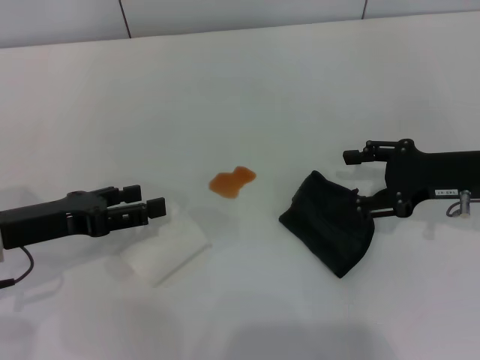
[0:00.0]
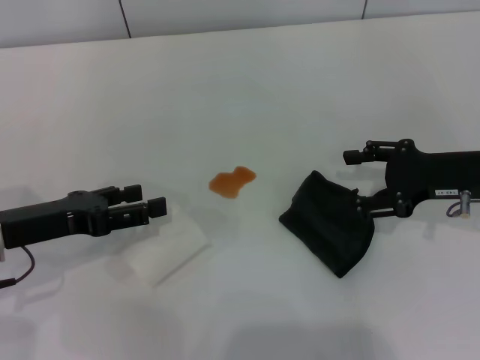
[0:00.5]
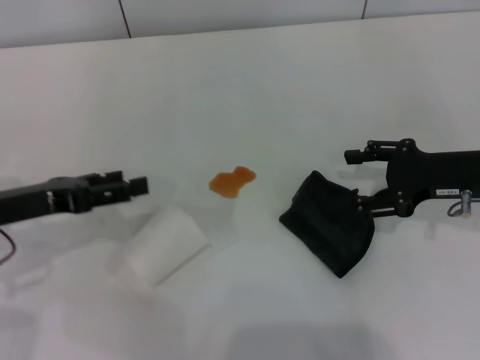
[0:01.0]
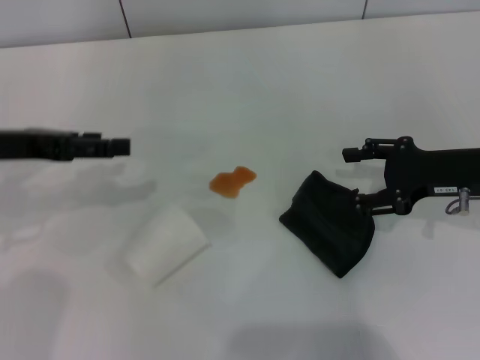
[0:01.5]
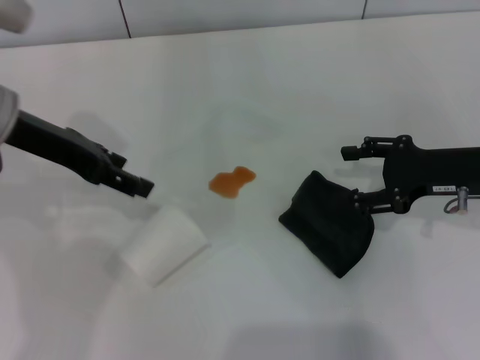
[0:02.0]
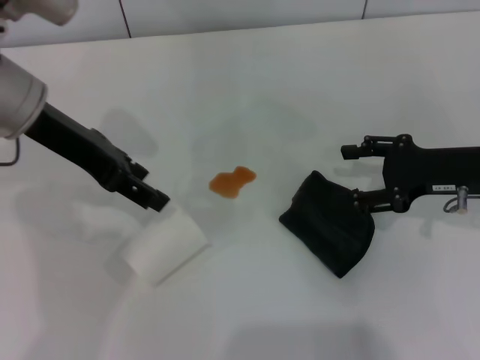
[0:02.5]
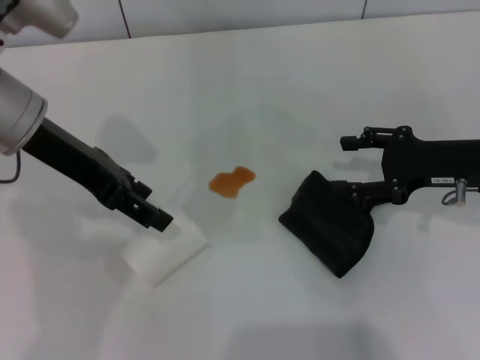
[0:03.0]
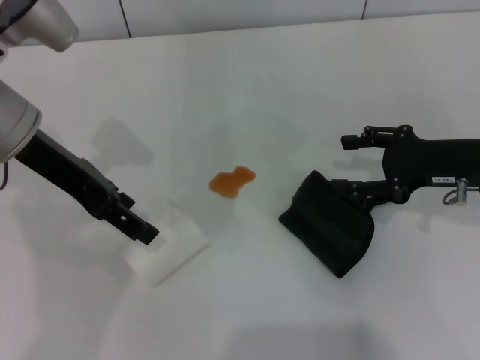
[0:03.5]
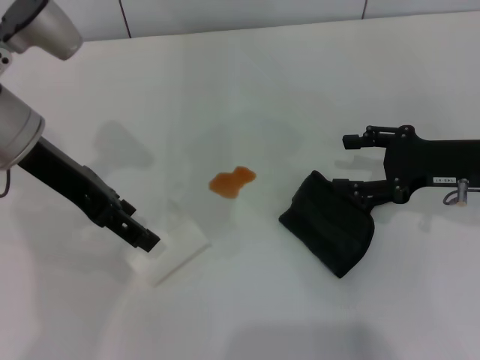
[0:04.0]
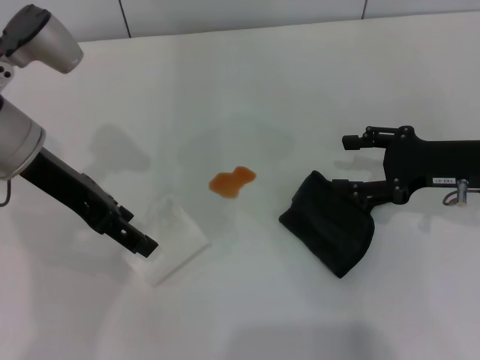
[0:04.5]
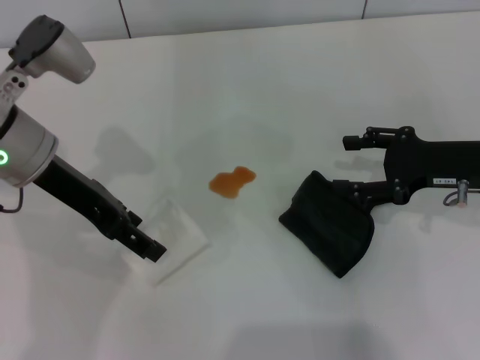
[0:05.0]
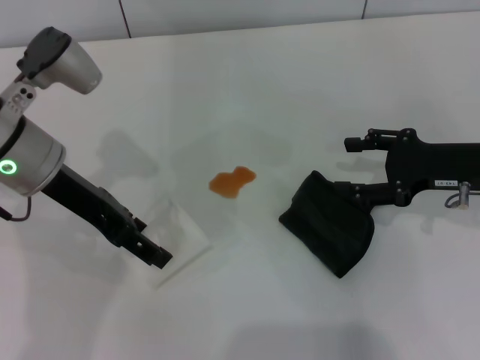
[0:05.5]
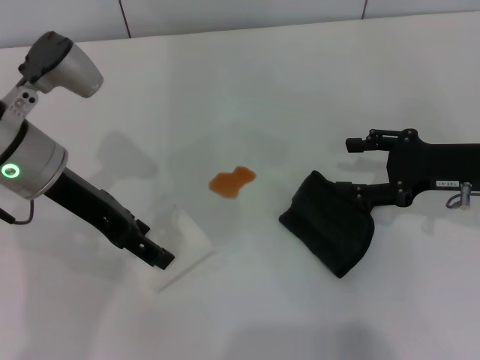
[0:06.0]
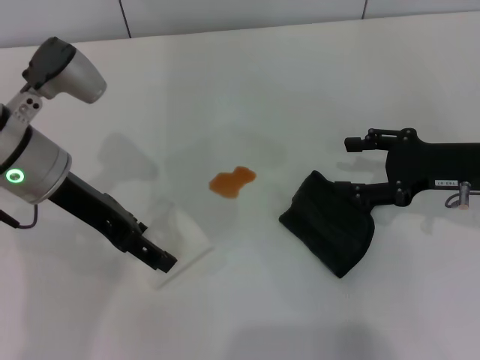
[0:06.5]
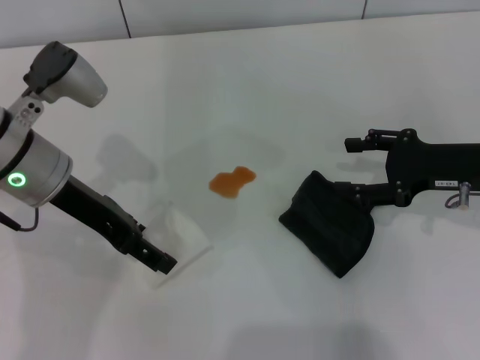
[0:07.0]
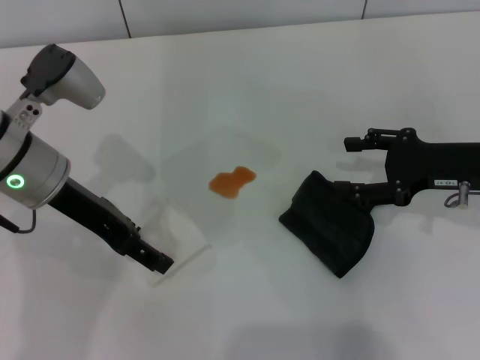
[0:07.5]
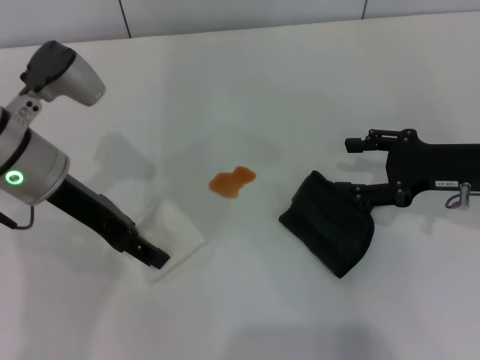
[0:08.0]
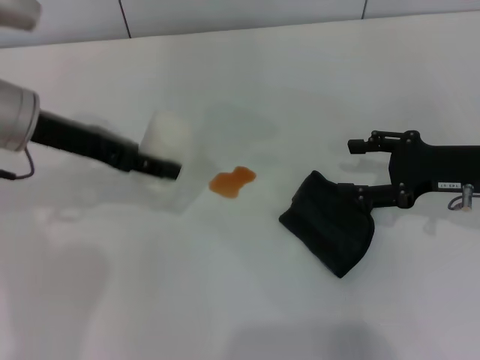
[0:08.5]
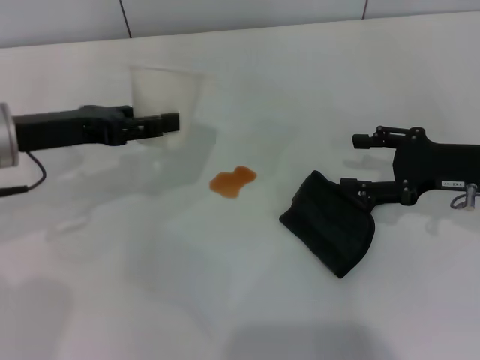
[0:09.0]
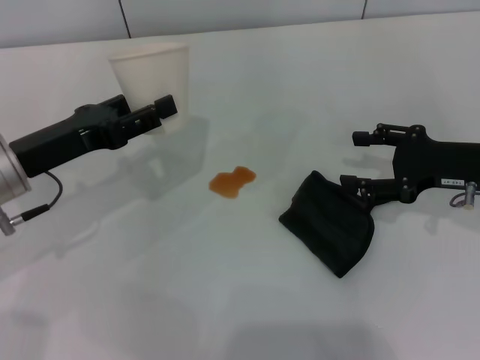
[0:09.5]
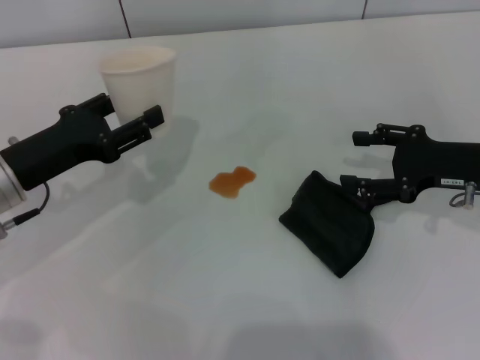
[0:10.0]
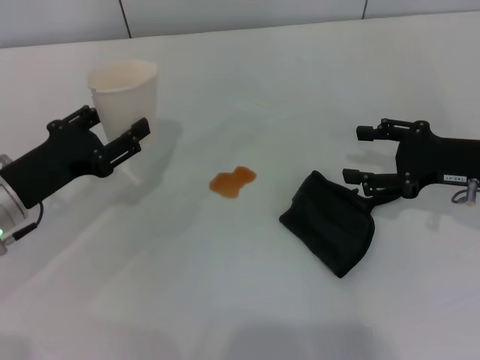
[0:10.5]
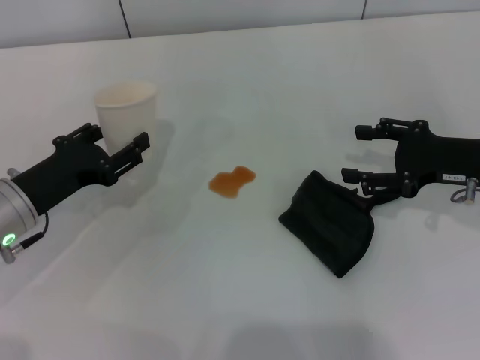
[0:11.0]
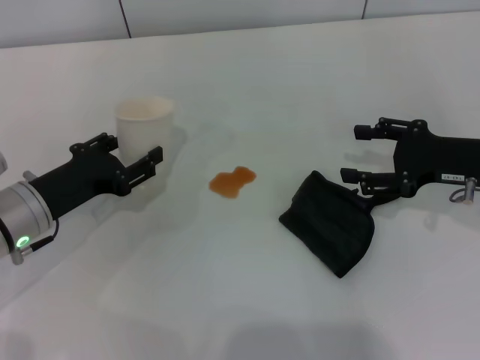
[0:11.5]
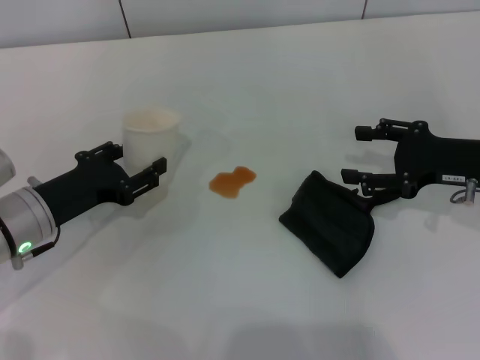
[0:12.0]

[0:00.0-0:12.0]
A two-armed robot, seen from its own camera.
Step, 0:00.0 to 0:07.5: Grasp the paper cup with the left gripper.
0:00.0 to 0:02.0: The left gripper travels upward, forward and to the right by about 15 cm.
0:02.0 to 0:04.0: The left gripper closes and opens again.
0:04.0 to 0:06.0: There are only small adjustments of the grippers.
0:06.0 to 0:08.0: The left gripper closes up.
0:08.0 to 0:10.0: The left gripper is displaced to the left by about 5 cm.
0:10.0 to 0:12.0: The left gripper changes place by some 5 cm.

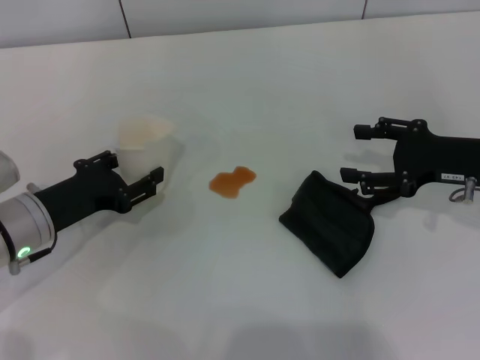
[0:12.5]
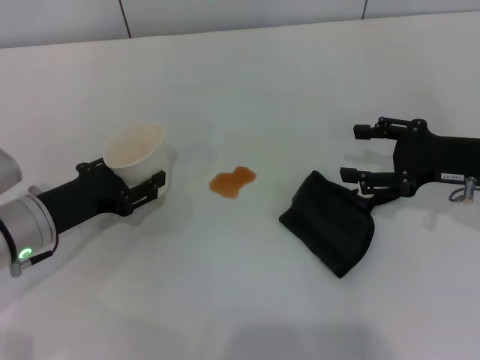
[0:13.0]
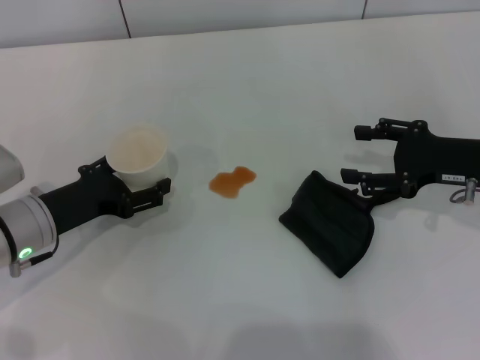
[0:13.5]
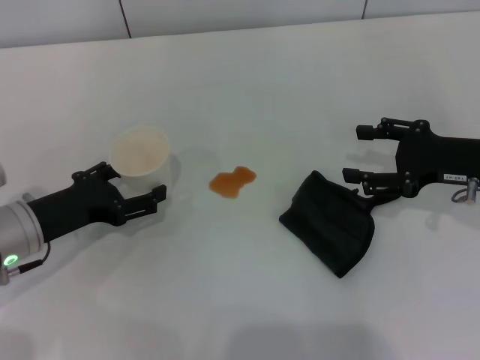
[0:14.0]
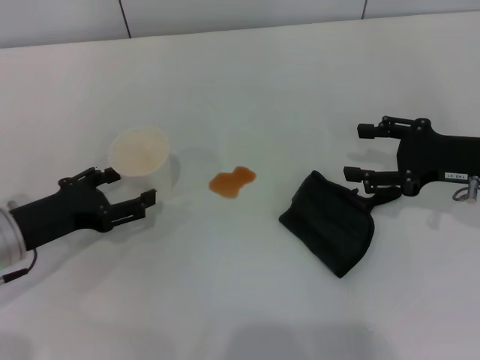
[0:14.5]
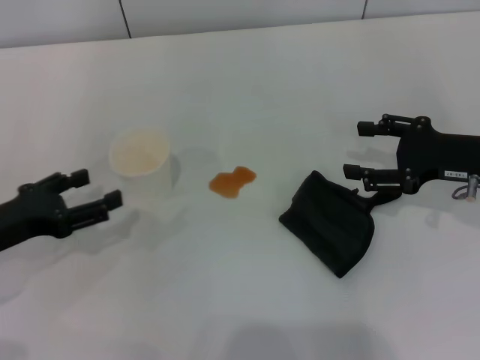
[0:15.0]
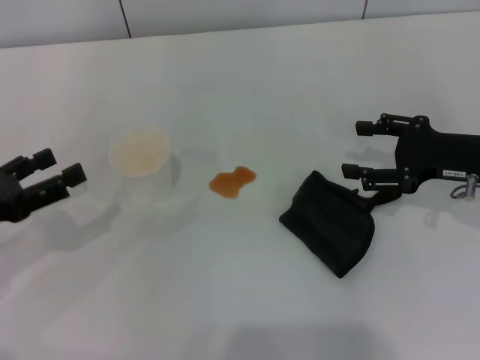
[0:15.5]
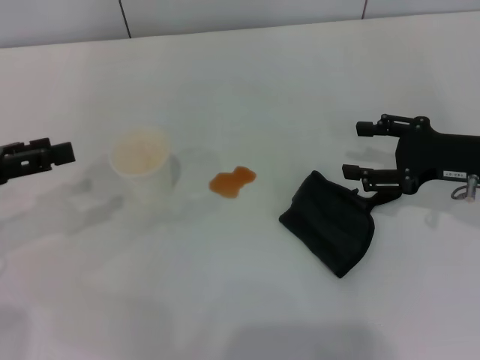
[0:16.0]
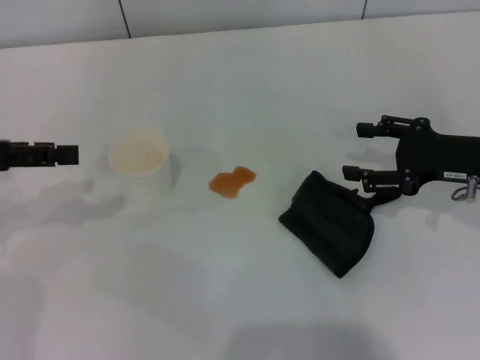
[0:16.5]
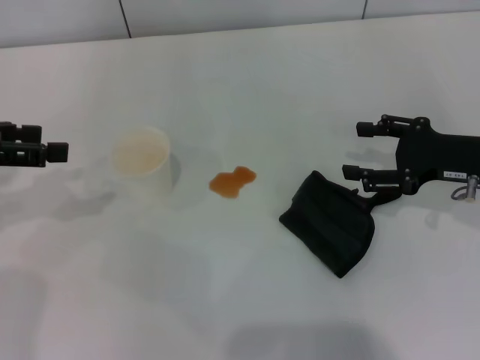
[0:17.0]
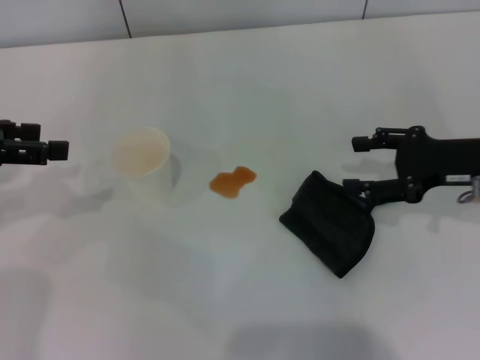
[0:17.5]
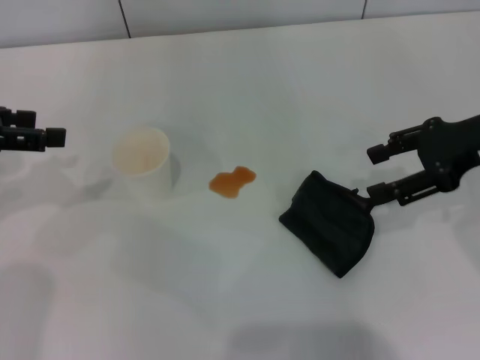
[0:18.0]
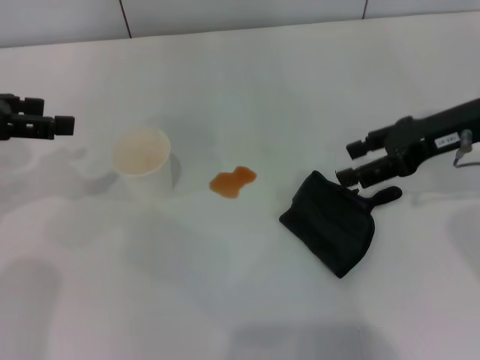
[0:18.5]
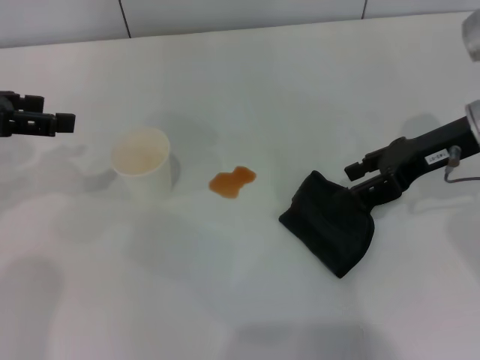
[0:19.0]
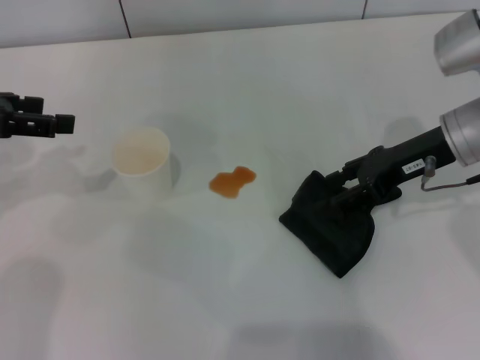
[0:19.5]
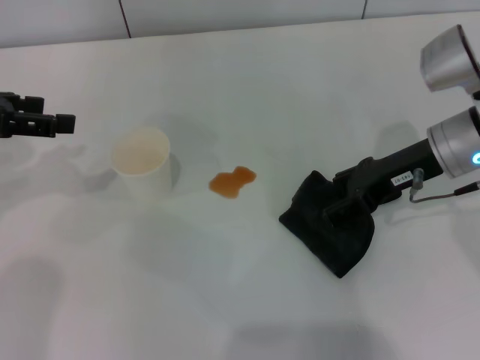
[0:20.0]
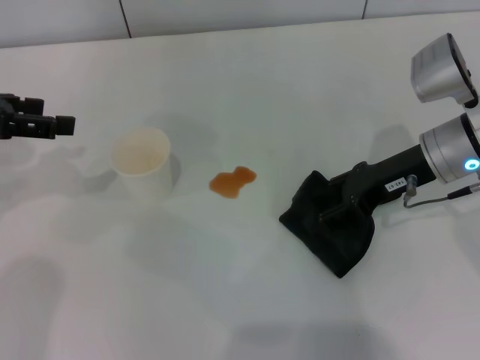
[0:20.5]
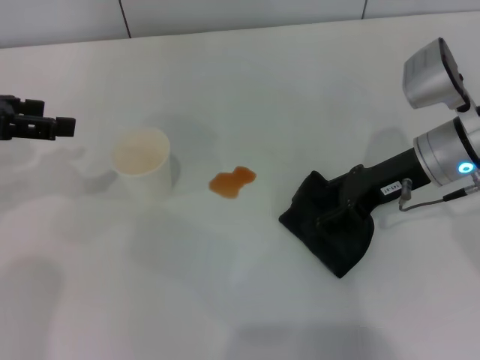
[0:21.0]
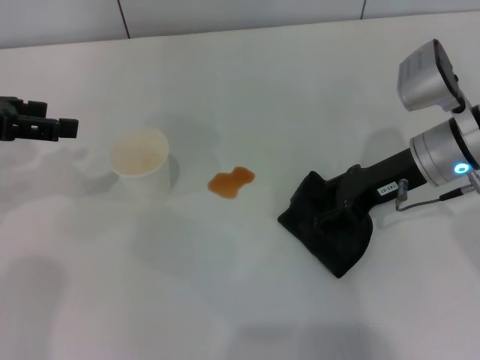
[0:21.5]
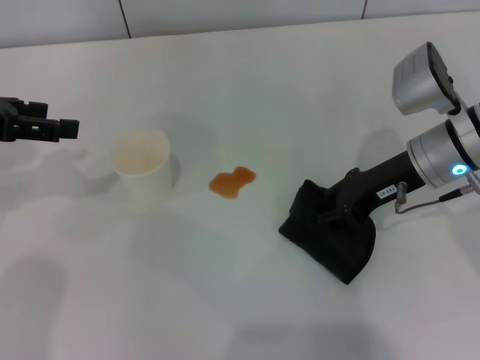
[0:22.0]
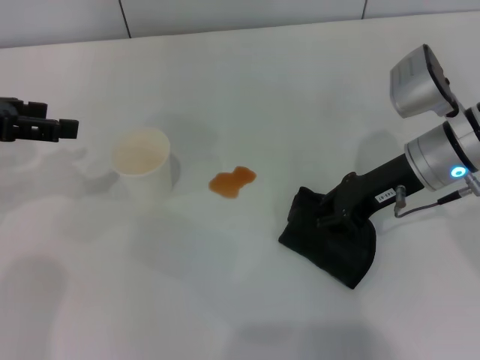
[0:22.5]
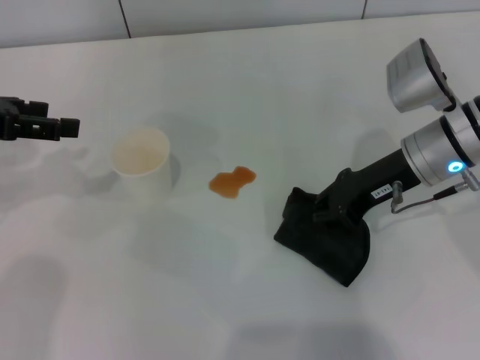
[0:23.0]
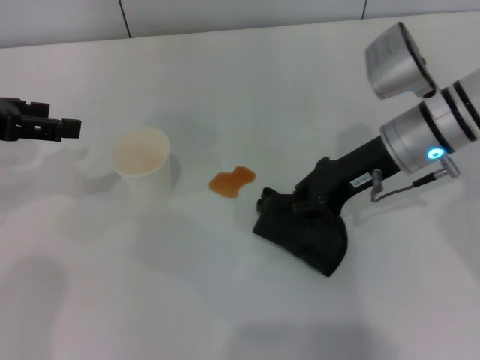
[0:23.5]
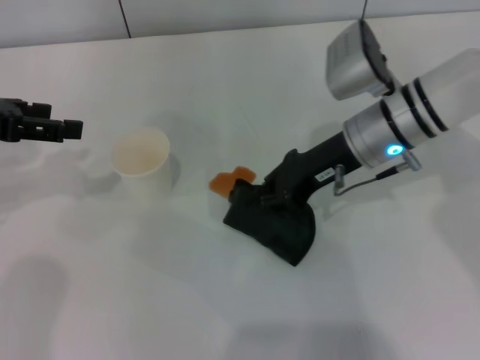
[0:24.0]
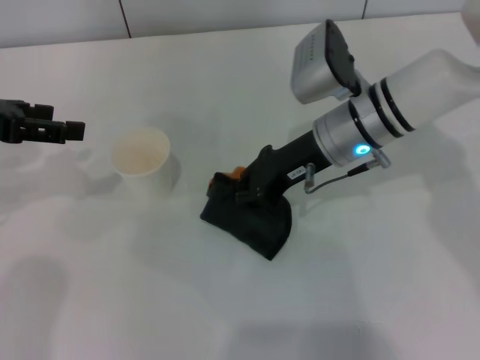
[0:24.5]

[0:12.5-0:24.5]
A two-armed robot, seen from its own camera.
Step, 0:12.5 to 0:15.0: Stand the paper cup upright with the left gripper.
Step, 0:15.5 to 0:22.5: Grasp the rag with the right gripper.
0:12.5 to 0:14.5: The left gripper opens its fingers.
0:14.5 to 0:16.5: The left gripper travels upward and to the left by some 15 cm.
0:16.5 to 0:18.5: The right gripper moves upward, some 5 cm.
0:18.5 to 0:20.5: The right gripper changes place by approximately 5 cm.
0:20.5 to 0:22.5: The right gripper closes its fingers.
0:22.5 to 0:24.5: The right gripper is displaced to the left by roughly 10 cm.

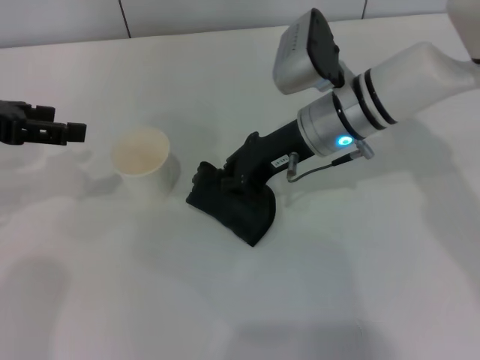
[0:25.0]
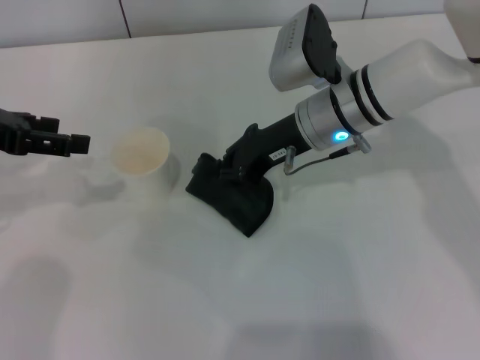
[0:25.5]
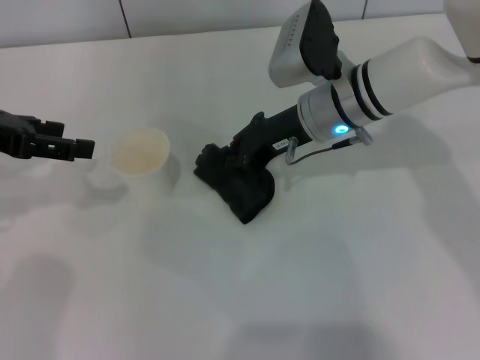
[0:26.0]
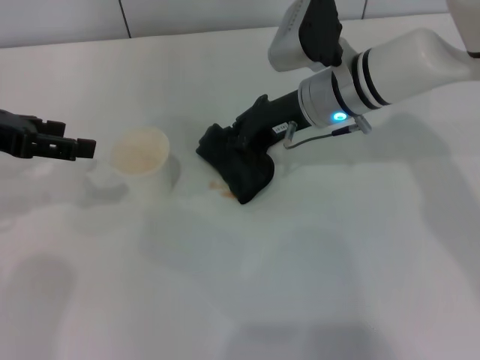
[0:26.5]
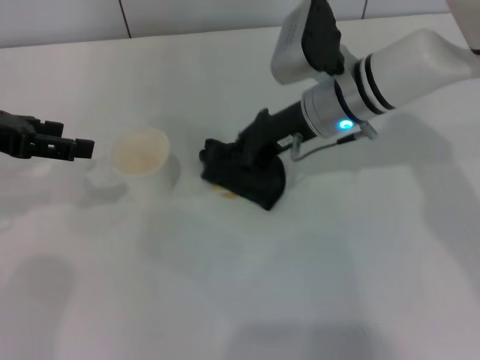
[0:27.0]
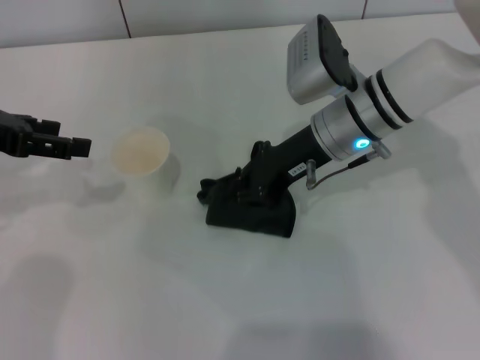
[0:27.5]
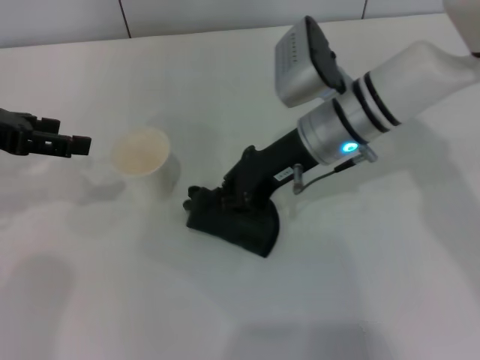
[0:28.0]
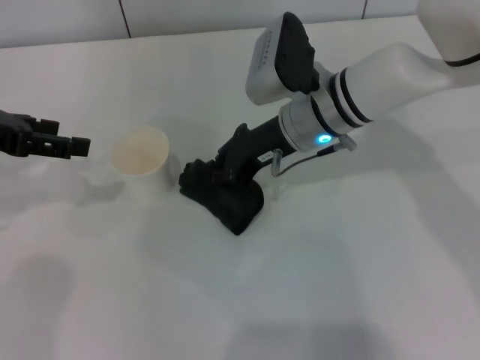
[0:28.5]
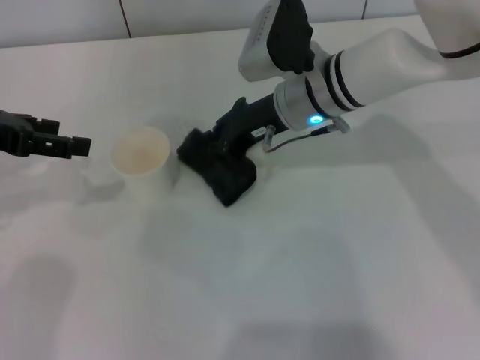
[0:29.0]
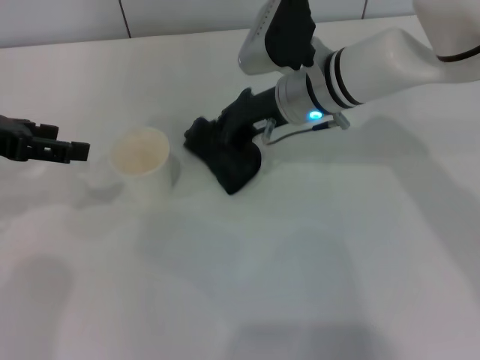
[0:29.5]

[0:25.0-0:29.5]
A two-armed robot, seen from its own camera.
0:25.0 to 0:29.5: The grippers stay close to where they were, moving slightly.
